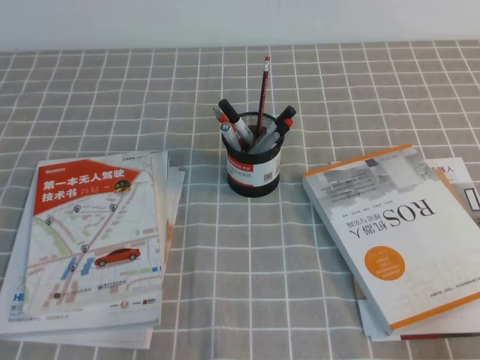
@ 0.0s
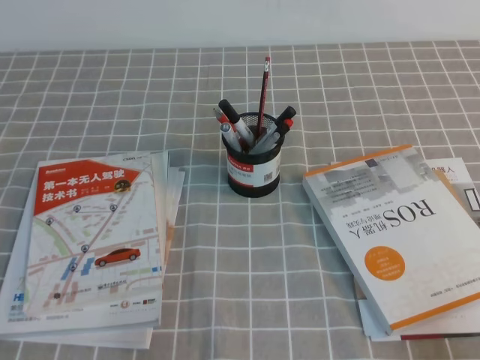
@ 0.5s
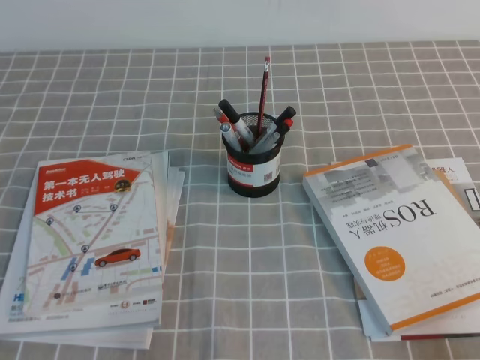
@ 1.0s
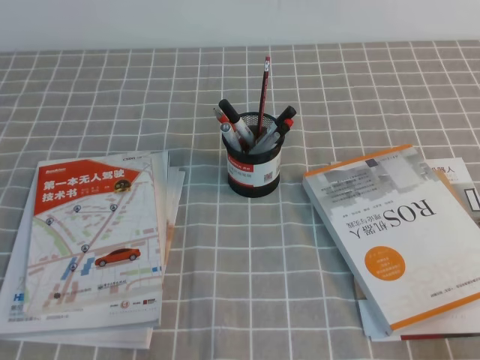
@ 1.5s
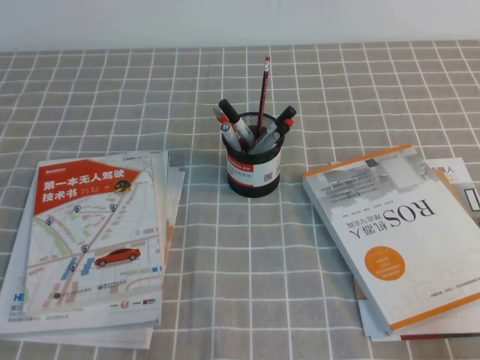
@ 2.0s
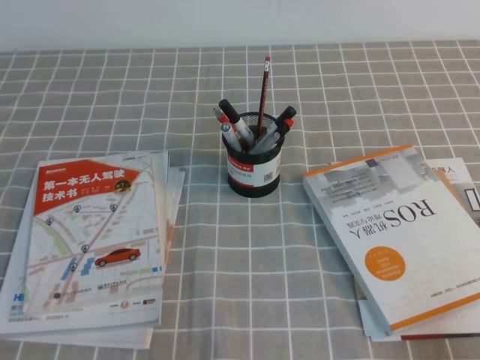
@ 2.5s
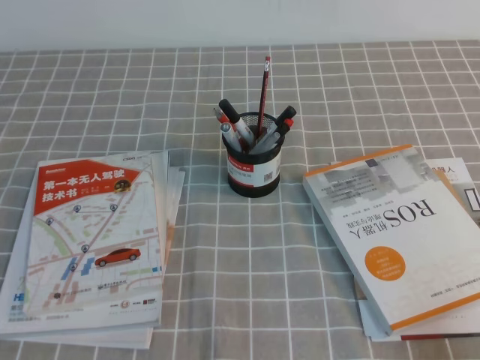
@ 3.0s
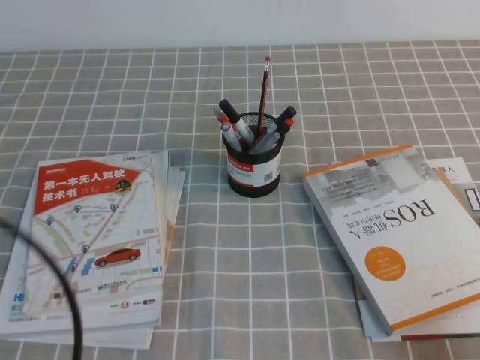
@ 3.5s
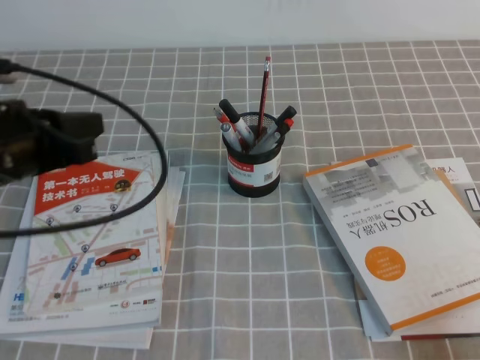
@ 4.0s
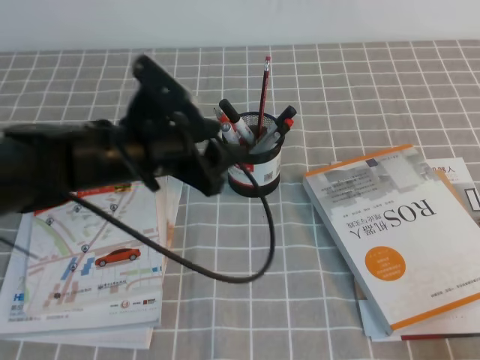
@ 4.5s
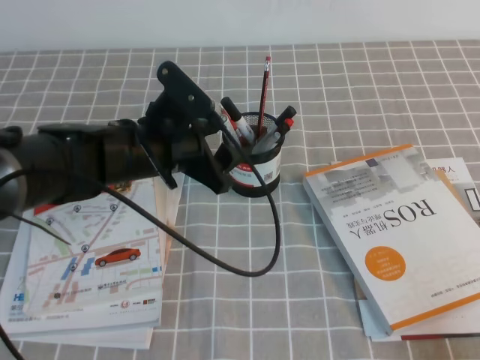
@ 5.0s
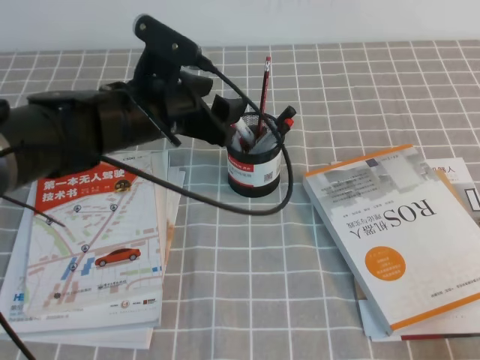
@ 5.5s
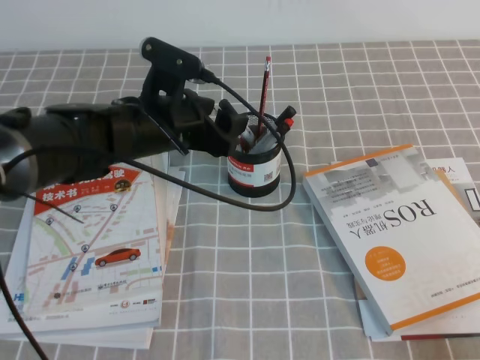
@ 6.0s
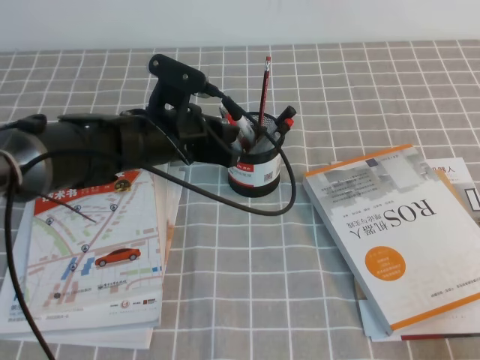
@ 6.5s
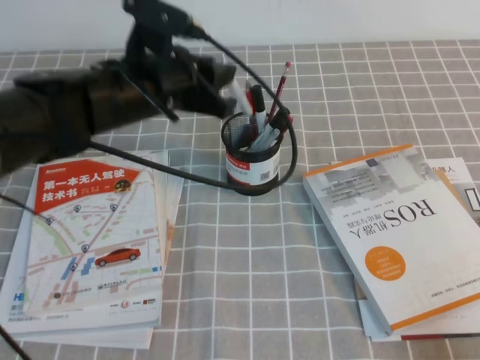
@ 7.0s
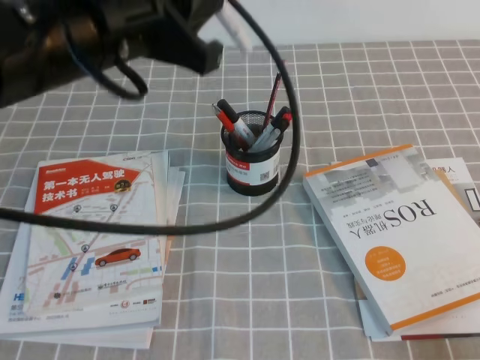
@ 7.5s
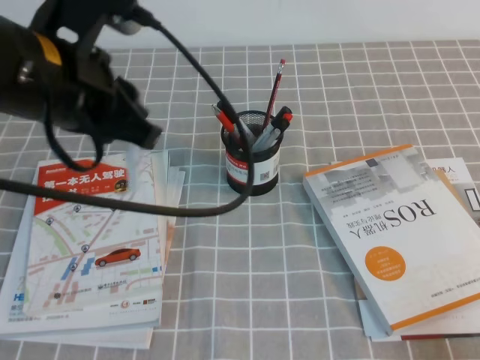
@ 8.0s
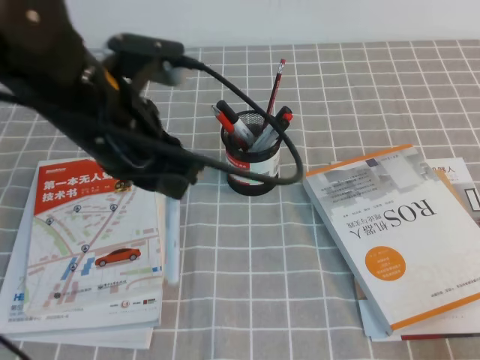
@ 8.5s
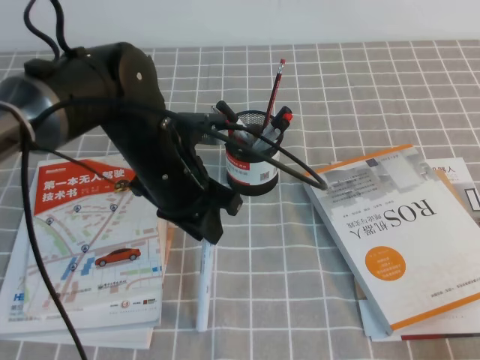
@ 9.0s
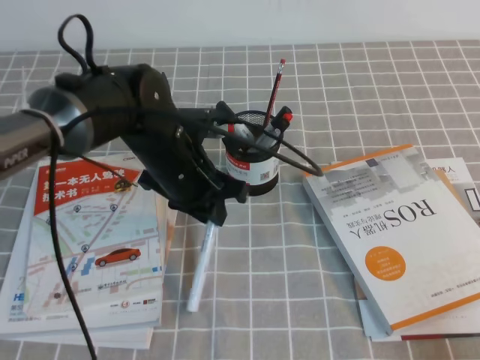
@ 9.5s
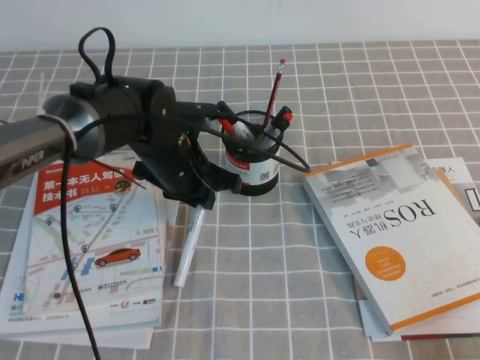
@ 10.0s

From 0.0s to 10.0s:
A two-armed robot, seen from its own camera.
From 0.0s to 2.0s: Both grippers stay about where they are.
From 2.0s to 4.0s: The left gripper shifts approximately 25 cm forward and upward.
From 4.0s to 6.0s: The left gripper travels to the right, forward and downward by some 20 cm, and opens up.
From 6.0s to 8.0s: The left gripper shifts some 15 cm upward and backward, and closes.
From 8.0s to 10.0s: The left gripper shifts about 20 cm downward and forward.

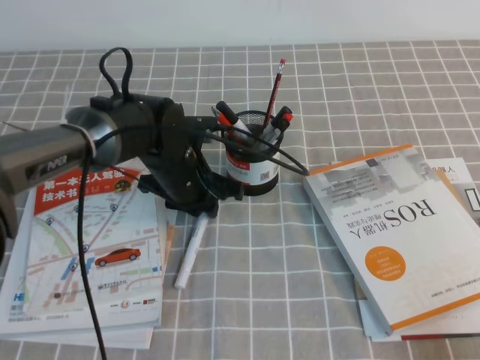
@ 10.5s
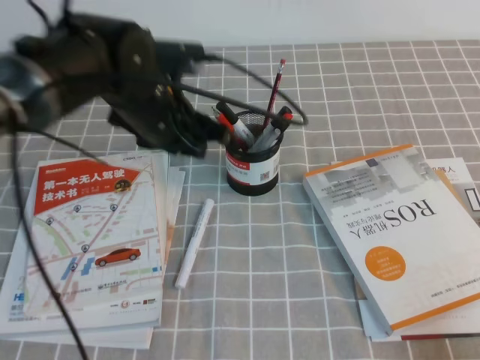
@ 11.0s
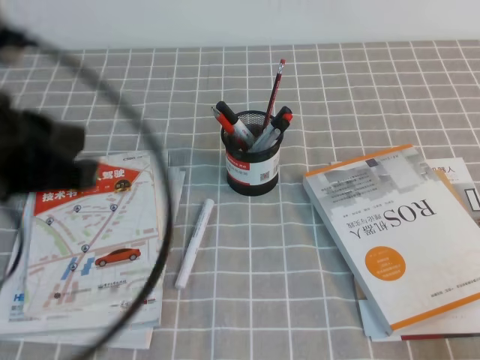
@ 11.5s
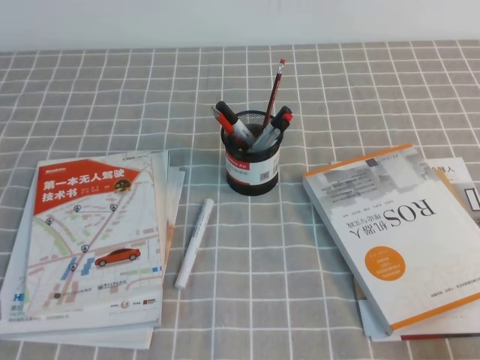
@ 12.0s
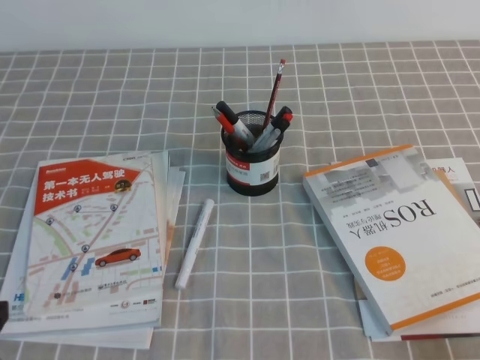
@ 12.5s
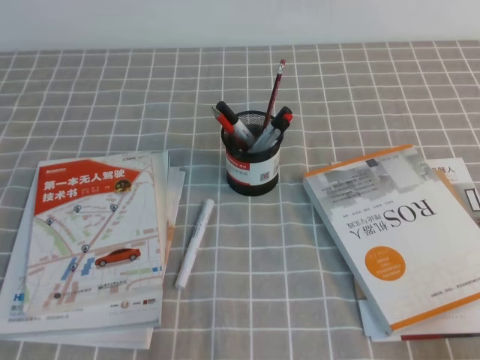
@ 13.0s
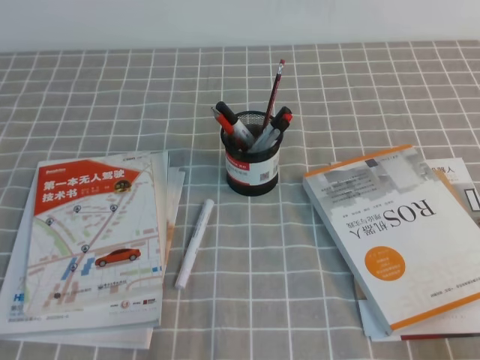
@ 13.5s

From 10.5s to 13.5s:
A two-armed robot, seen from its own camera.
Step, from 10.5s to 13.5s: Pick up the pen from the pen holder.
From 10.5s to 12.0s: The left gripper heads backward, to the left and upward, covering approximately 35 cm, and closes.
From 12.0s to 13.5s: The left gripper is displaced downward by roughly 15 cm.
